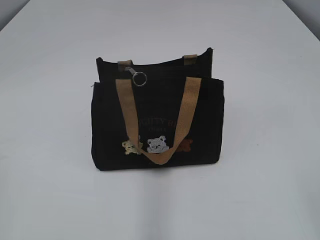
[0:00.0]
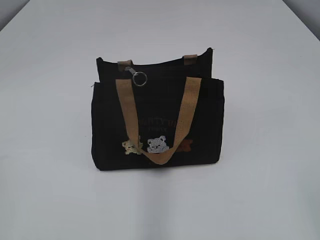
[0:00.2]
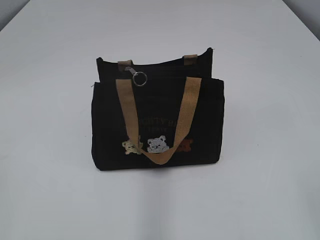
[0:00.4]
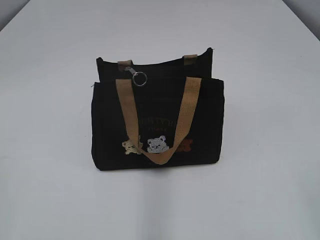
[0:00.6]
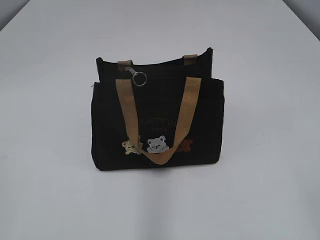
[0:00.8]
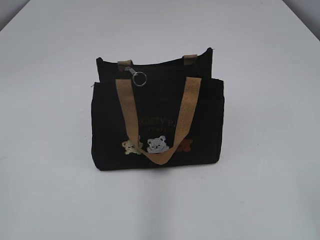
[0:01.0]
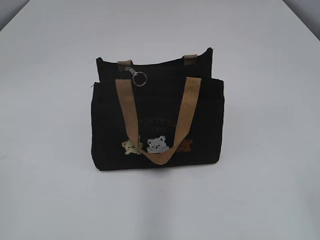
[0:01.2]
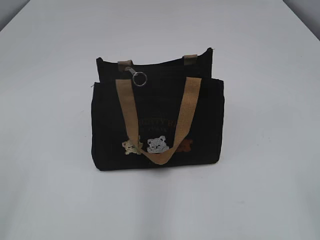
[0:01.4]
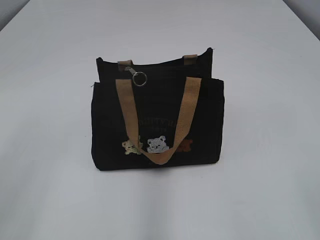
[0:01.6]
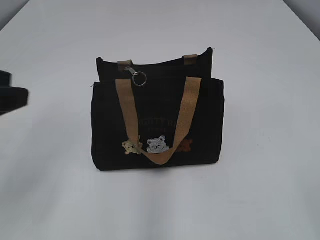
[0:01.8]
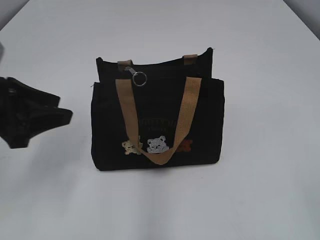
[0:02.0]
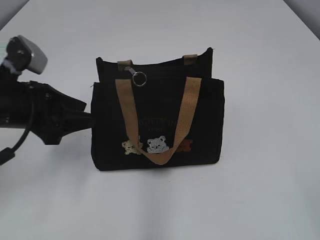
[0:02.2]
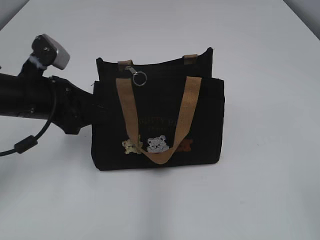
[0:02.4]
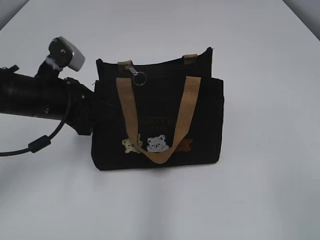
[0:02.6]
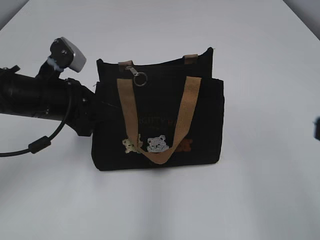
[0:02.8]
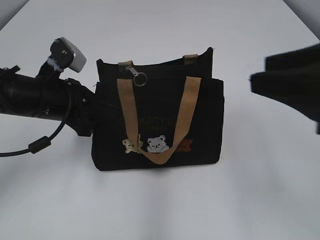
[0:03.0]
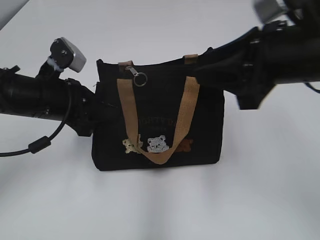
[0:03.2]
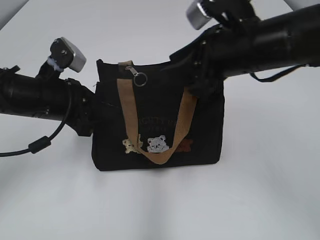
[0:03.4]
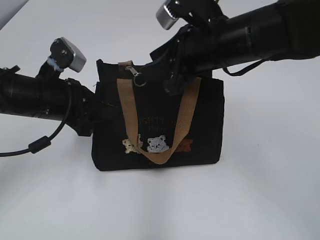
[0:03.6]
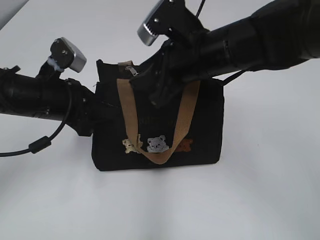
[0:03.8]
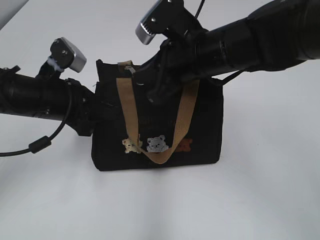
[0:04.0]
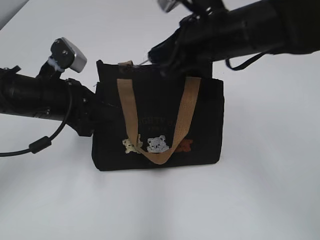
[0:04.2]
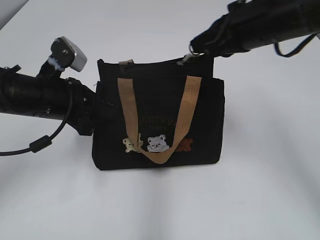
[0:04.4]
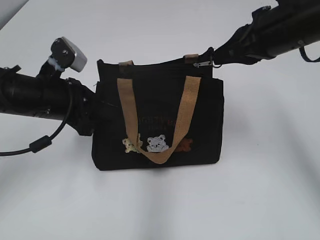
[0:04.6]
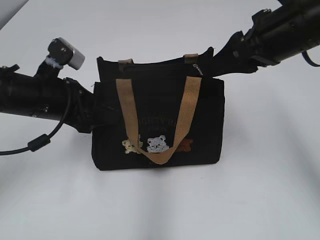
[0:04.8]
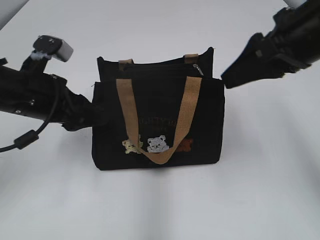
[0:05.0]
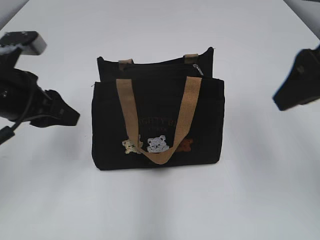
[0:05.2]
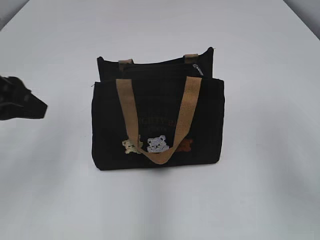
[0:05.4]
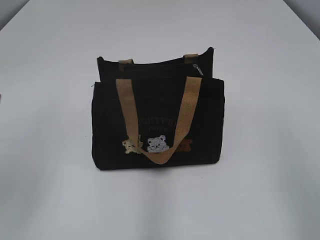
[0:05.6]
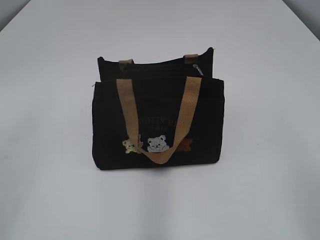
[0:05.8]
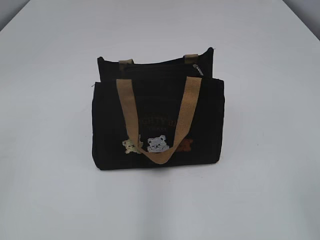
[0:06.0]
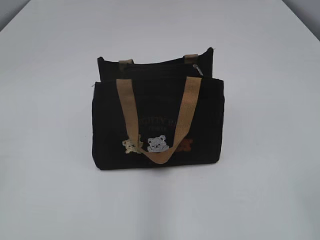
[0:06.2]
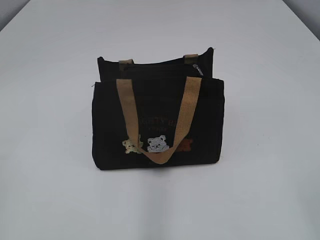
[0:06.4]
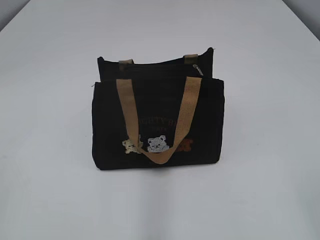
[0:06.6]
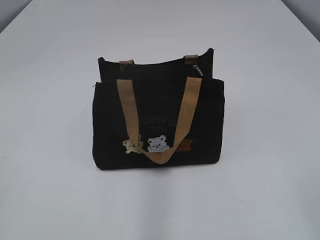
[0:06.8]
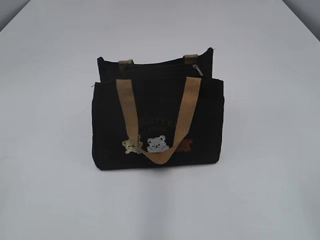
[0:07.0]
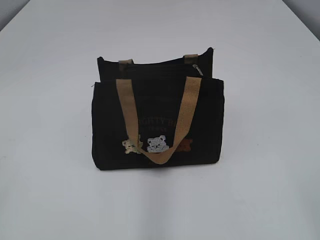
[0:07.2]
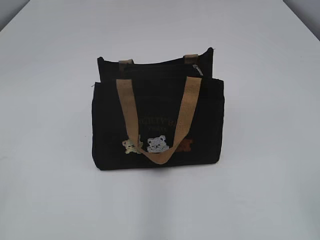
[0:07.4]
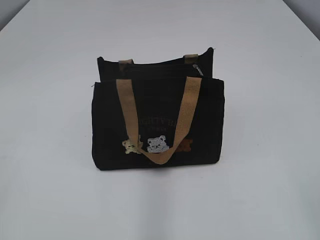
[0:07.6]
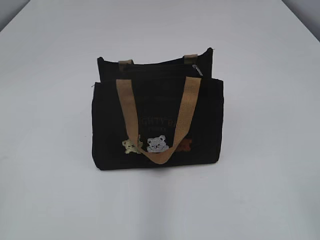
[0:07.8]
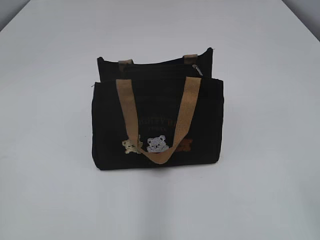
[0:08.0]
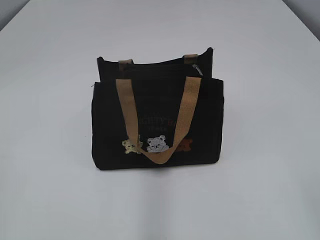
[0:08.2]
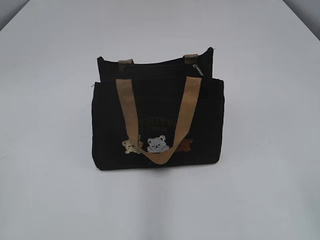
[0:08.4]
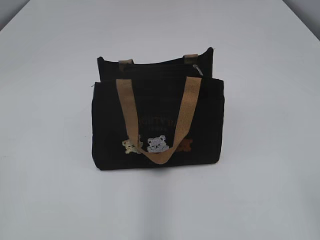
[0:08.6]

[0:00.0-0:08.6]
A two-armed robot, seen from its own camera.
Step, 0:00.0 to 0:04.8: Pull open the zipper with your right hand.
0:01.4 to 0:02.8: The right gripper shifts some 5 cm forward, while the left gripper travels forward and to the right by roughly 30 cm, and closes up.
0:02.8 to 0:04.4: The right gripper shifts some 30 cm forward, and closes its fingers.
0:04.4 to 0:05.8: The left gripper moves backward, upward and to the left, approximately 25 cm, and opens up, while the right gripper heads backward and to the right, covering about 30 cm, and opens up.

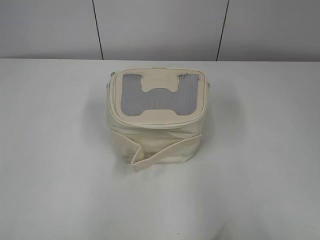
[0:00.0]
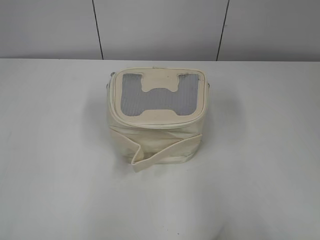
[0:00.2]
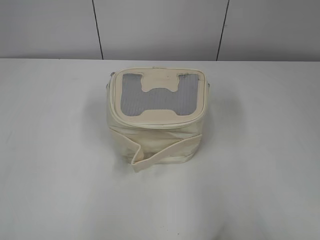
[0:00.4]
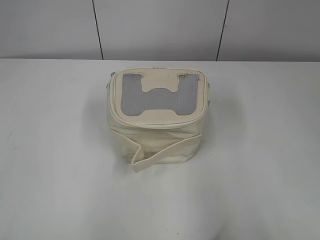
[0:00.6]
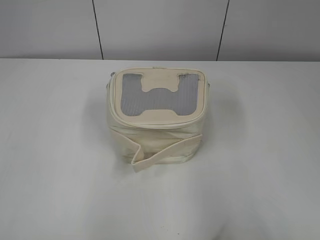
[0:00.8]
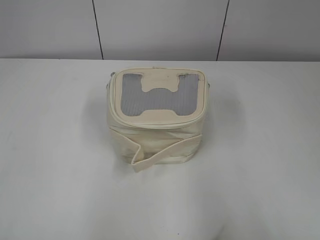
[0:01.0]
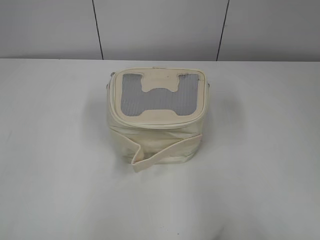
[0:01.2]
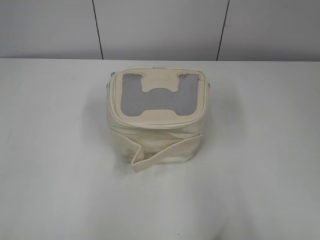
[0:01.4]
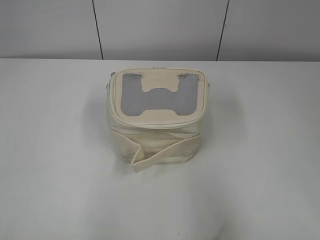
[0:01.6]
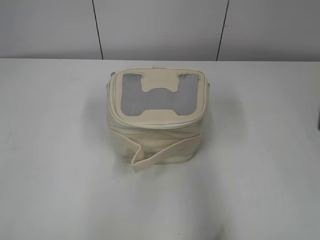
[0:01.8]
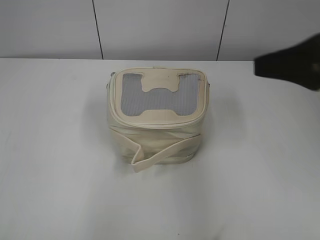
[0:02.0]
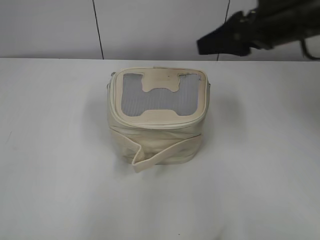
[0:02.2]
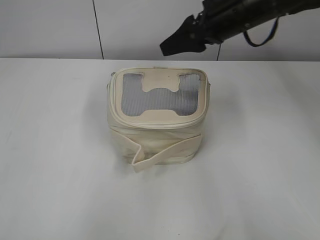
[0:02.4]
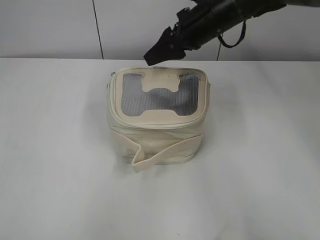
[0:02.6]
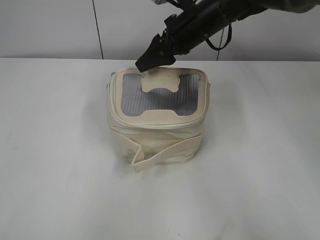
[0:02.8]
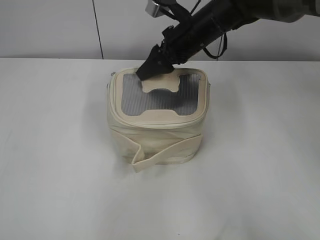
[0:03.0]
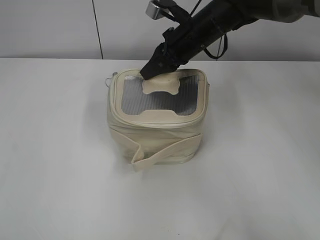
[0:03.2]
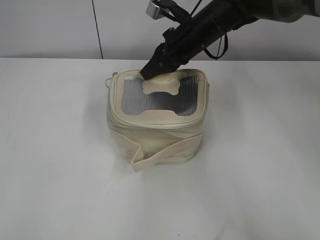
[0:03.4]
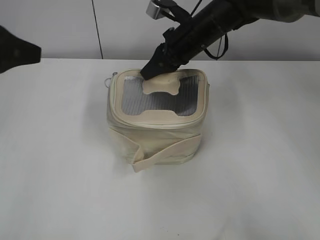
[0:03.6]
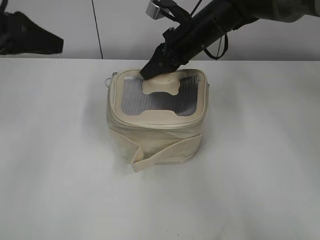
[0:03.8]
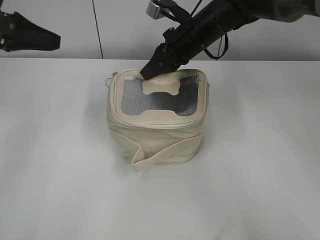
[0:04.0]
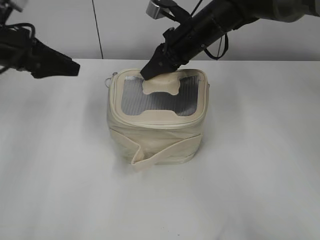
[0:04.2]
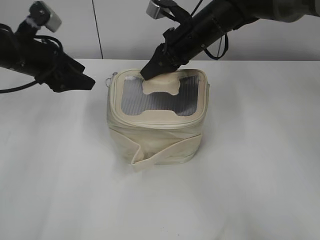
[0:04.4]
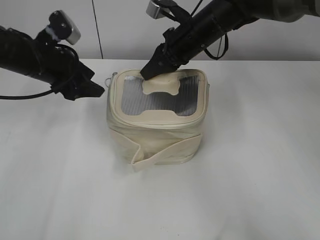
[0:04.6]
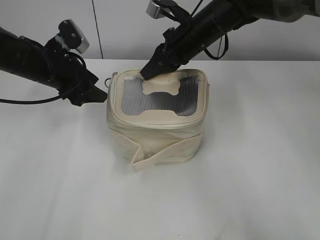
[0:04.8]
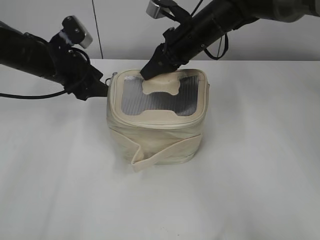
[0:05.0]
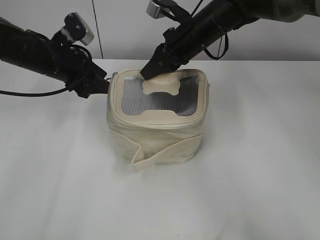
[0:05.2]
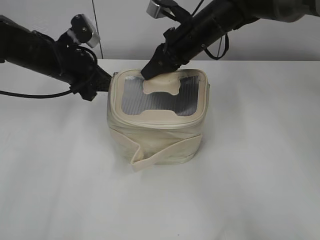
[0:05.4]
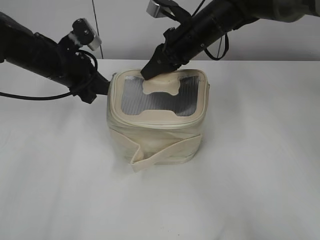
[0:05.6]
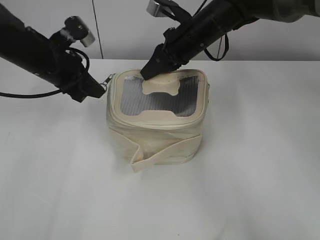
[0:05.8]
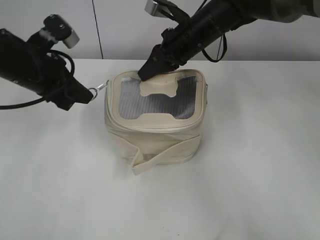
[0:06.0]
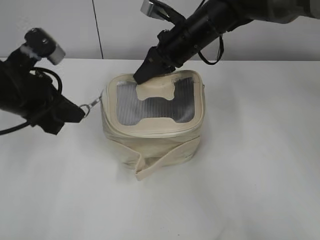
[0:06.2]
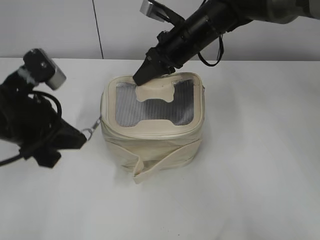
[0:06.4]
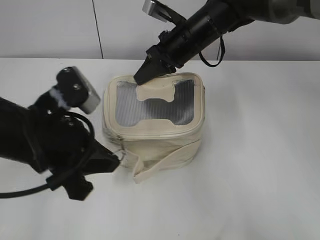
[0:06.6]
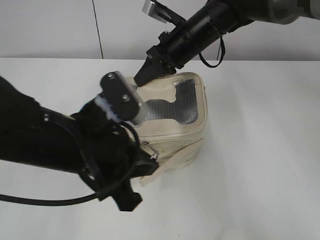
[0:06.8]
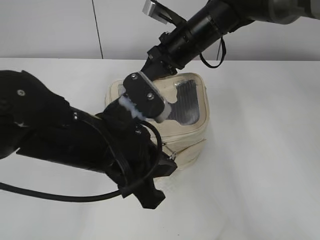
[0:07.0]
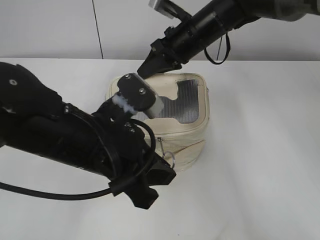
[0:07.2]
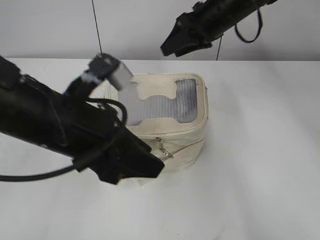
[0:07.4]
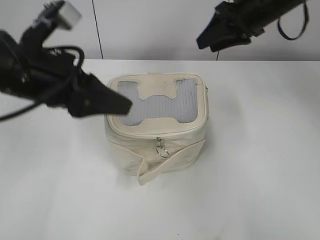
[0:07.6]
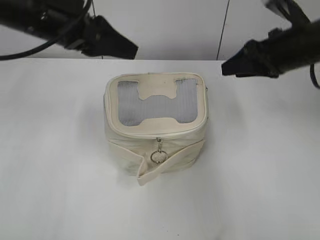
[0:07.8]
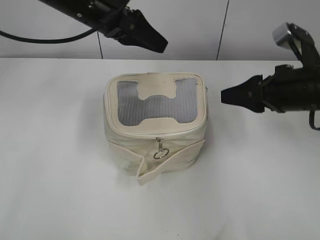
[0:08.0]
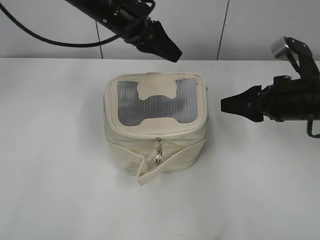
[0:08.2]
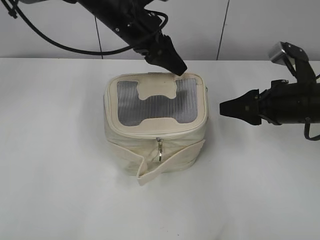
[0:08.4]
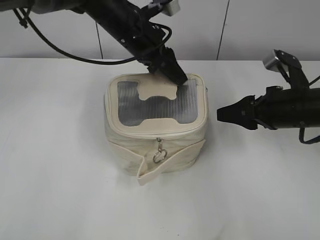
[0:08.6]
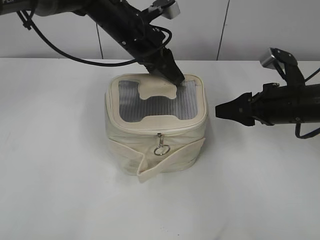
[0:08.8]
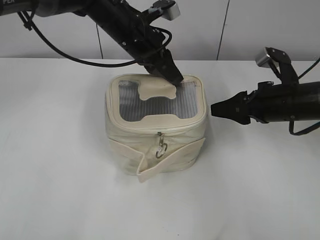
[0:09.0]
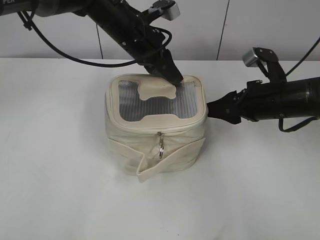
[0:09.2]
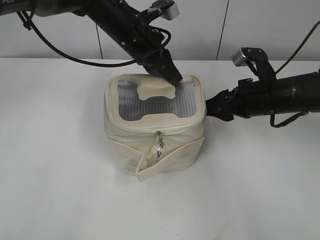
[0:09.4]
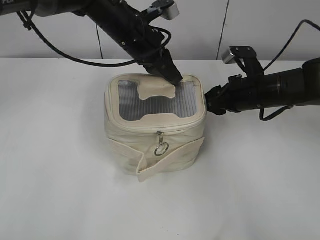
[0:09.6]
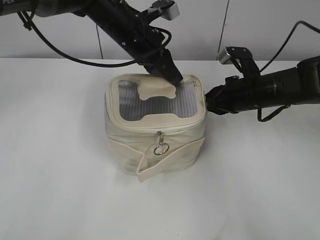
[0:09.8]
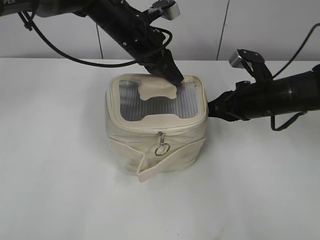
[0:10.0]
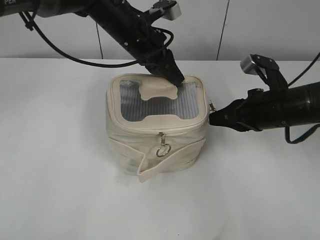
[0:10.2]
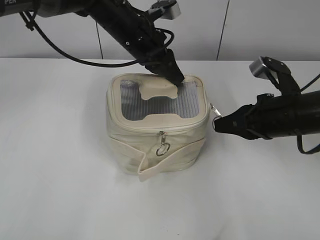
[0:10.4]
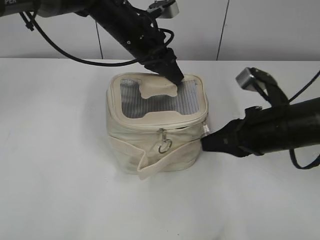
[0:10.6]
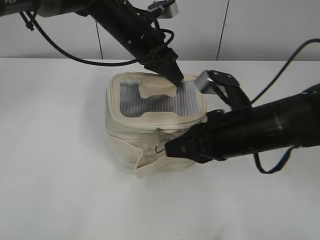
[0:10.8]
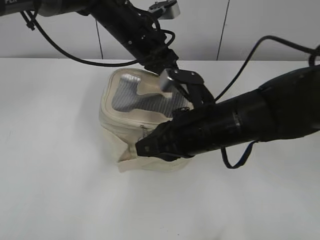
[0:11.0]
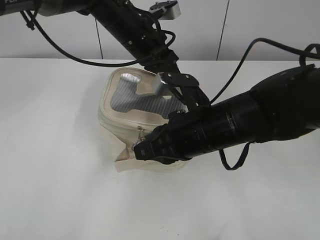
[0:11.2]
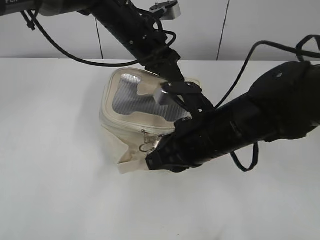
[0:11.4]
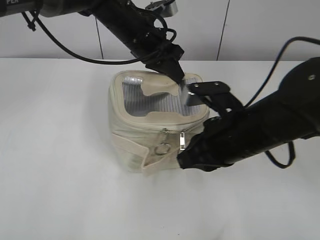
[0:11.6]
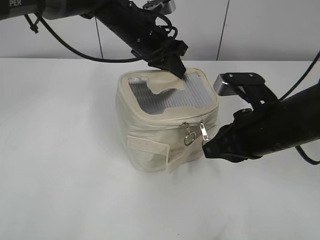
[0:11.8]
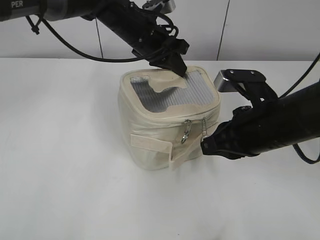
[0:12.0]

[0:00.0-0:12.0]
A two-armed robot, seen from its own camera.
Step, 0:00.0 to 0:07.2: Hold the bag with your right hand.
0:01.6 to 0:03.0: The right gripper moves forward and to the left, roughly 50 cm.
0:03.0 to 0:04.4: The right gripper closes up; the left gripper shifts roughly 35 cm forward, and opens.
0:04.4 to 0:06.0: The left gripper closes up.
0:06.0 to 0:07.6: The left gripper moves backward and to the right, some 15 cm, and opens. Meanwhile the right gripper is displaced to the right and upward by roughly 10 cm, and opens.
0:07.6 to 0:09.0: The right gripper travels backward, downward and to the right by approximately 20 cm. The left gripper shifts some 20 cm forward and to the right, and closes its fingers.
0:09.0 to 0:10.4: The right gripper travels forward and back again, some 5 cm each way, and closes up.
0:10.4 to 0:12.0: The right gripper moves to the left, about 5 cm.

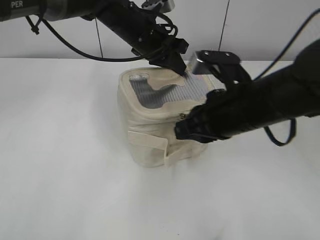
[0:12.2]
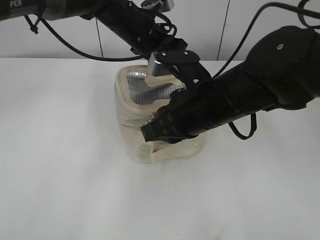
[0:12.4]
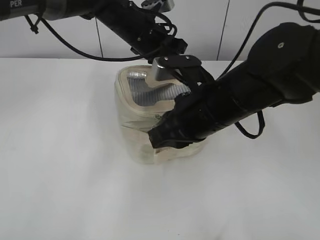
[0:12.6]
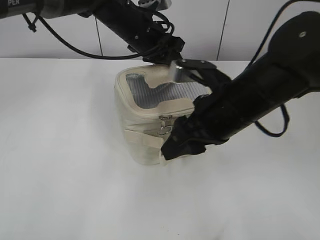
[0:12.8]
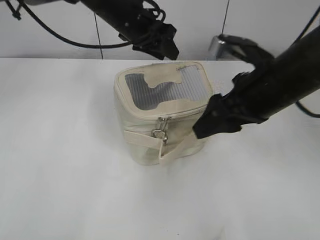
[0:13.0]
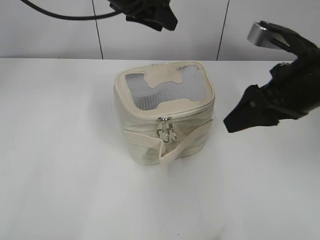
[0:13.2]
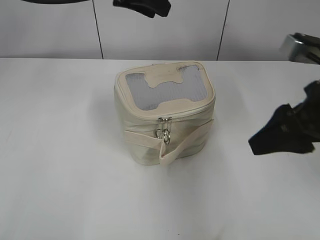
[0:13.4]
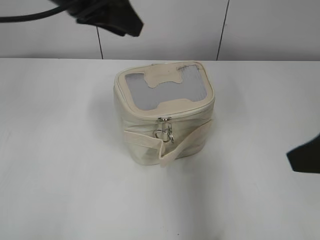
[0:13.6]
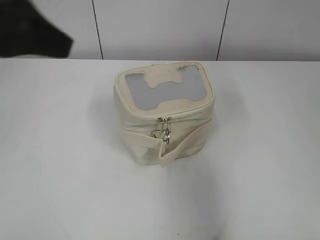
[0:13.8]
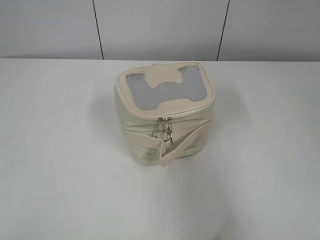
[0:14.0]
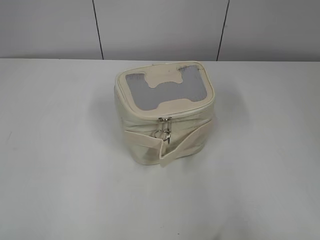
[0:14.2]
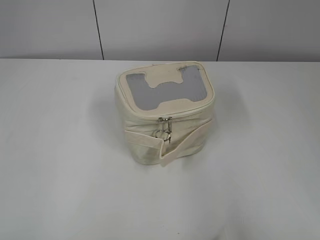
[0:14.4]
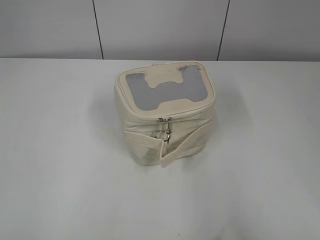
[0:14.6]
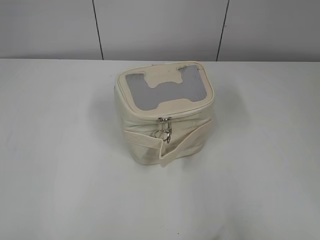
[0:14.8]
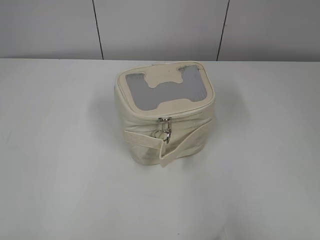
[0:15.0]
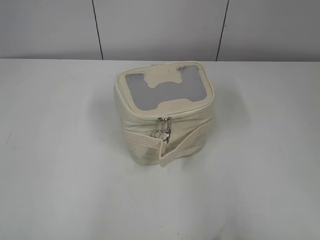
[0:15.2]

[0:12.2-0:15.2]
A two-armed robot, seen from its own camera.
0:12.2 to 0:13.8: The left gripper moves backward, upward and to the left, approximately 25 cm, and opens. Meanwhile the right gripper is displaced backward, to the right and upward by some 20 cm, and opens its fingers.
0:13.8 to 0:15.2: The left gripper heads backward and to the left, covering approximately 30 cm. Meanwhile the right gripper shifts some 10 cm backward.
